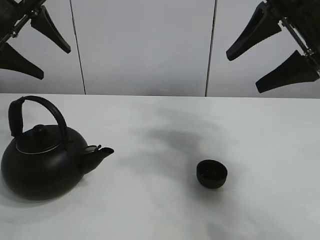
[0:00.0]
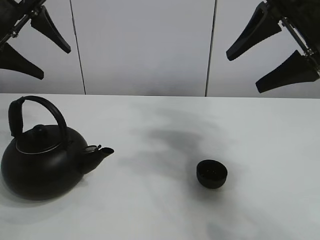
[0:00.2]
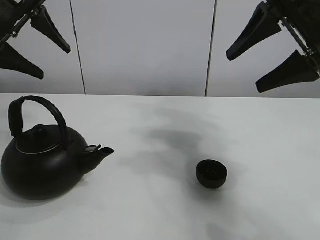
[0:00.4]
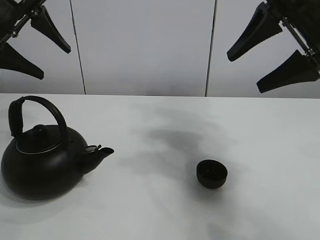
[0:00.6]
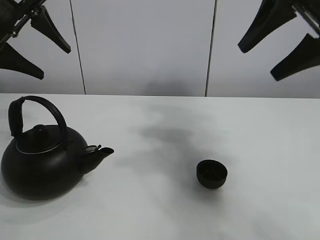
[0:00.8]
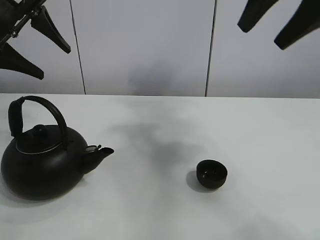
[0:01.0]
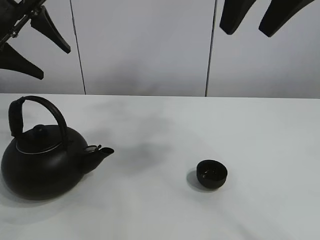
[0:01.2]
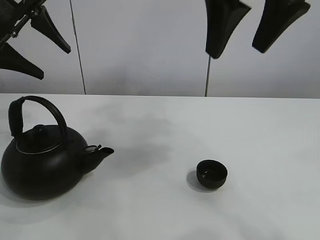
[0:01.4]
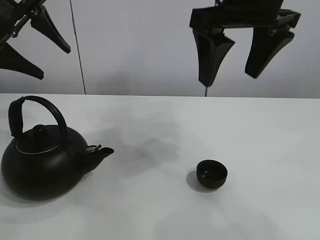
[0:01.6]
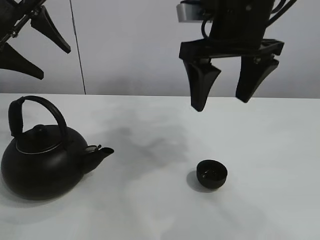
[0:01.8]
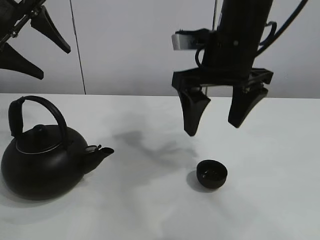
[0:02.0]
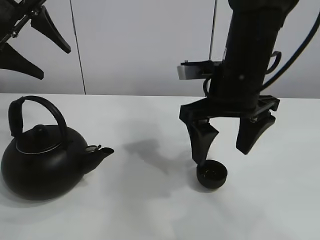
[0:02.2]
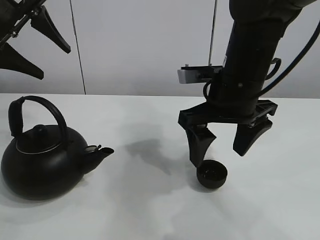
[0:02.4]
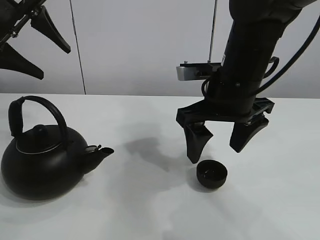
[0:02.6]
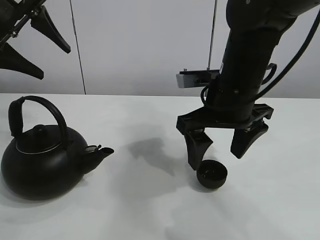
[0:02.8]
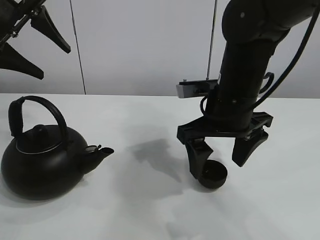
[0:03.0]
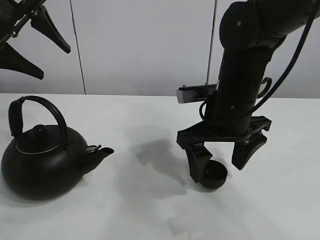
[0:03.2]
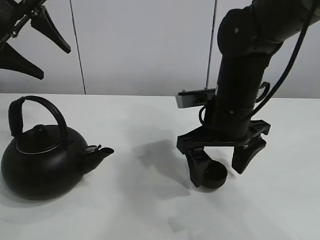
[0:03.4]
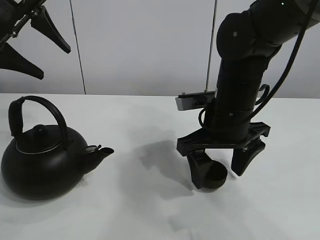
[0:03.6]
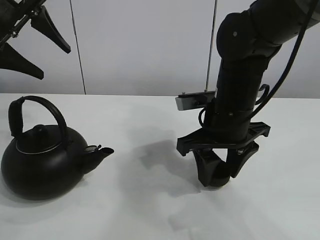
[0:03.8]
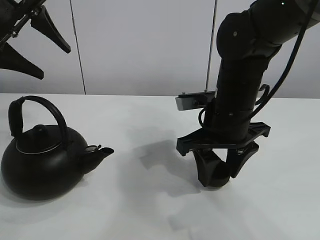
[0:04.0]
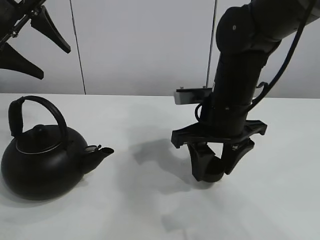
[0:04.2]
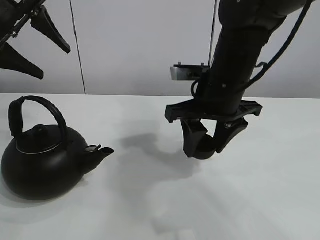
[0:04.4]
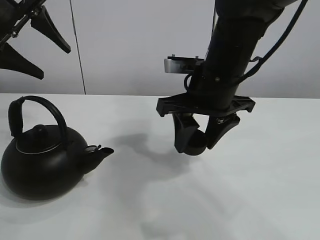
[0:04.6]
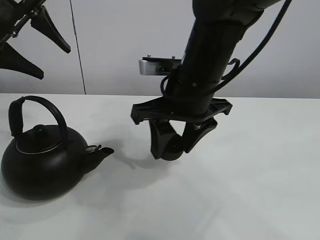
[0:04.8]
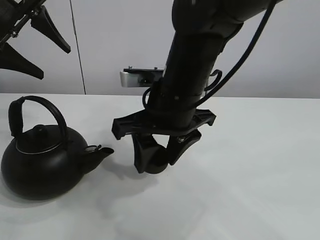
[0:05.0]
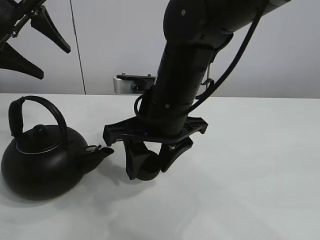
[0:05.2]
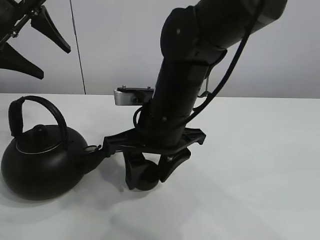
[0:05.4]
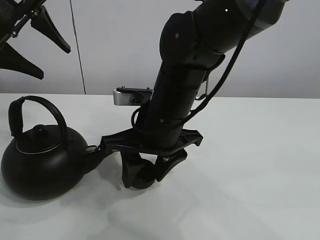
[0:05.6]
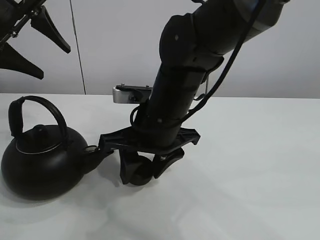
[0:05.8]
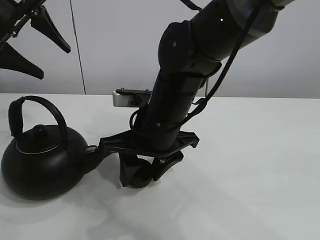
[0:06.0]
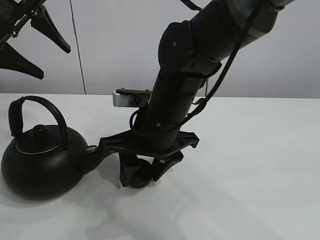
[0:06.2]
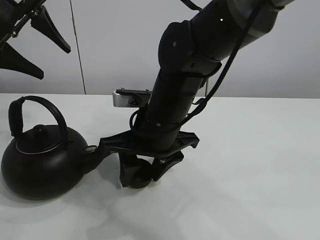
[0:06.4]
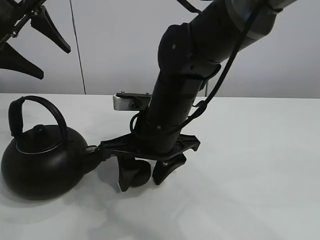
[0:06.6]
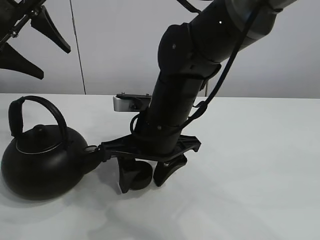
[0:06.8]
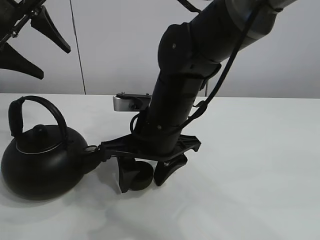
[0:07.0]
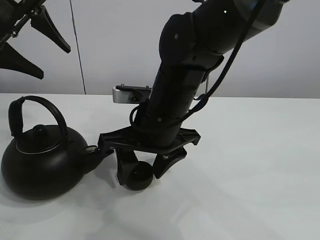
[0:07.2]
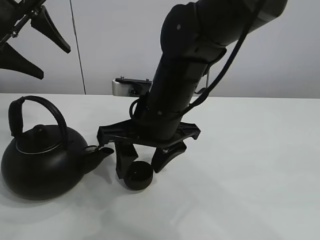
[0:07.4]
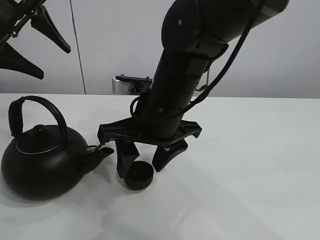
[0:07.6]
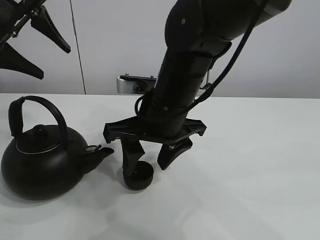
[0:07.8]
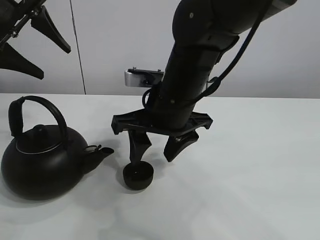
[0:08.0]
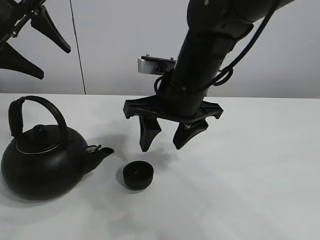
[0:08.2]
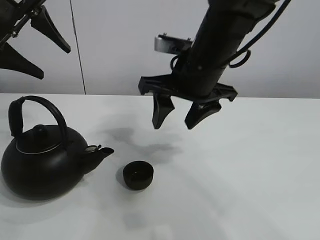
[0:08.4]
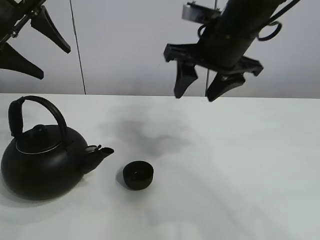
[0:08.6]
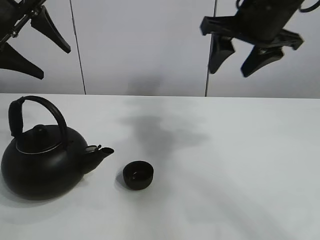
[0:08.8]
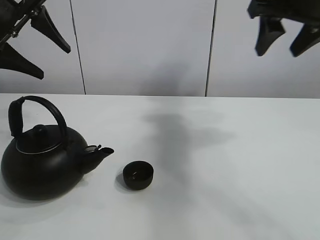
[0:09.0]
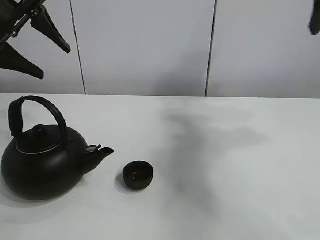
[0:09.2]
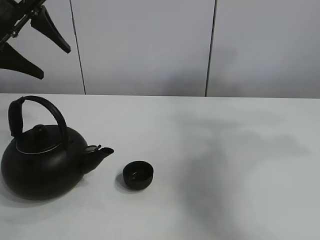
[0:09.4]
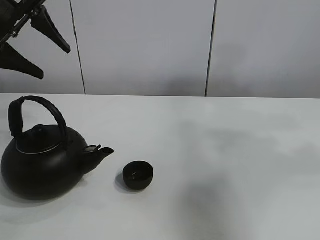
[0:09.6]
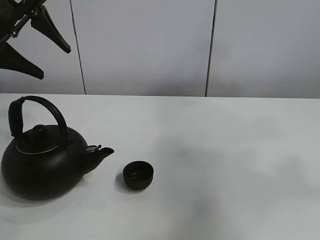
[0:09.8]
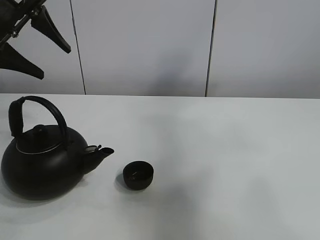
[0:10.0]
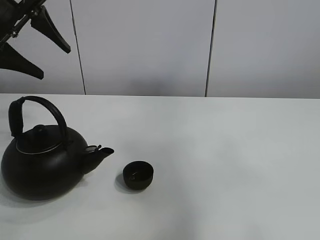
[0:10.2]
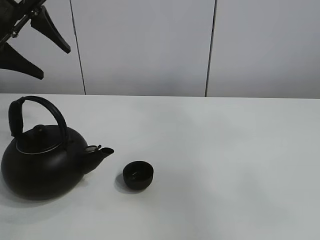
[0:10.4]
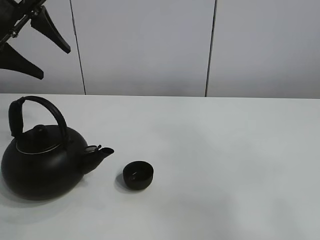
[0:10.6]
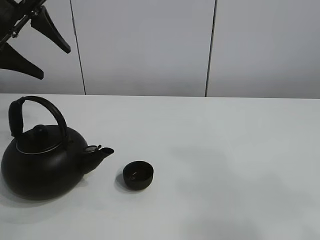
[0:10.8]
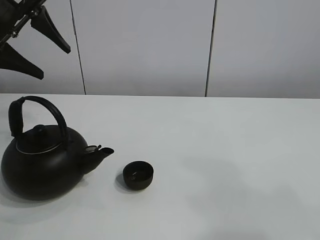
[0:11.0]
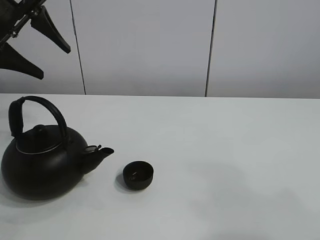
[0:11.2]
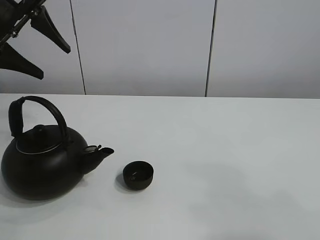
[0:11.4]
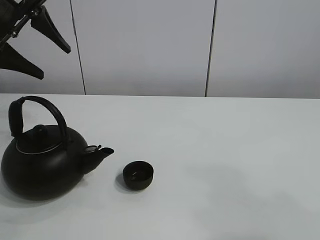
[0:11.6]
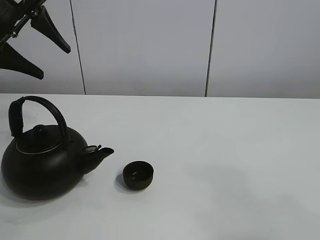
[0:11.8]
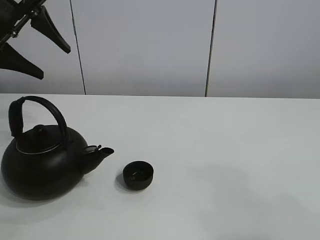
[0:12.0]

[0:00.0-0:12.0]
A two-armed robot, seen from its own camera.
Task of the whole recording: pour tea into the teacup.
Step, 0:00.0 to 0:04.0: Pick up the teacup with the right gripper.
Step, 0:04.4 to 0:06.6: Place the teacup in the center of view with the right gripper.
0:01.6 to 0:03.0: The right gripper goes approximately 15 cm downward.
0:03.0 to 0:04.4: The right gripper closes.
0:04.4 to 0:06.0: The right gripper moves to the left, some 10 cm.
0:06.0 to 0:07.6: The grippers stay close to where they were, moving slightly.
0:07.6 to 0:09.0: The right gripper is displaced to the right and upward by some 25 cm.
0:09.0 to 0:10.4: The right gripper goes some 35 cm backward and upward.
0:10.4 to 0:12.0: The right gripper shifts approximately 20 cm downward.

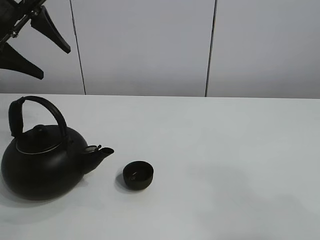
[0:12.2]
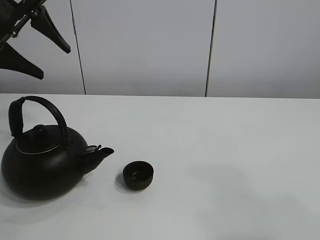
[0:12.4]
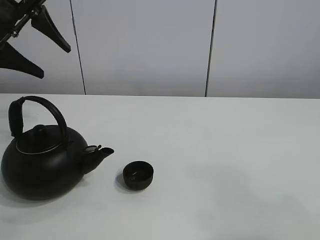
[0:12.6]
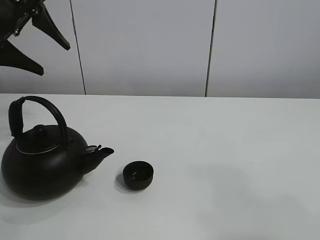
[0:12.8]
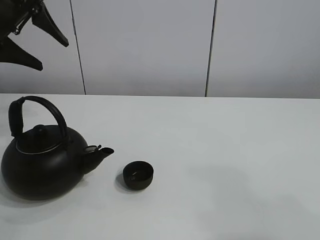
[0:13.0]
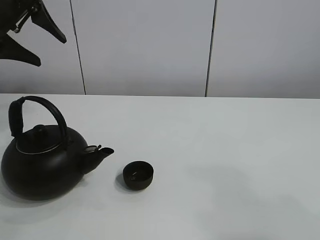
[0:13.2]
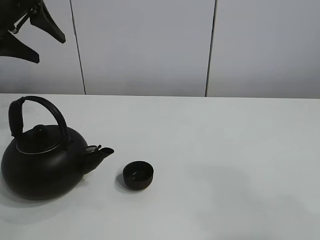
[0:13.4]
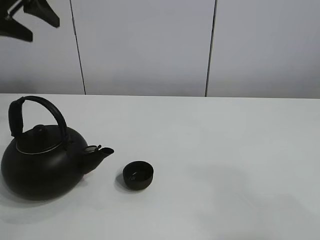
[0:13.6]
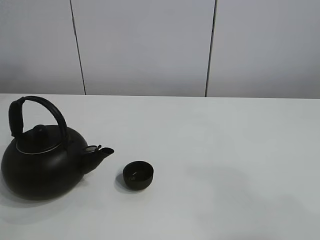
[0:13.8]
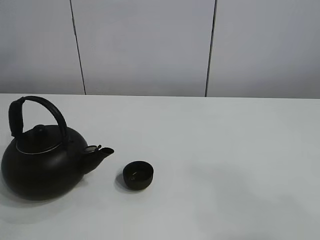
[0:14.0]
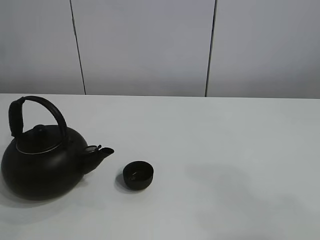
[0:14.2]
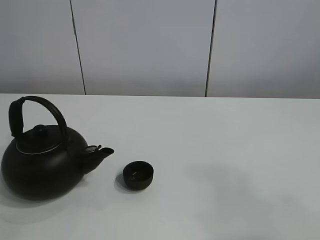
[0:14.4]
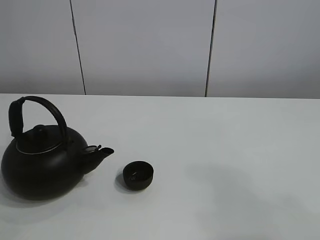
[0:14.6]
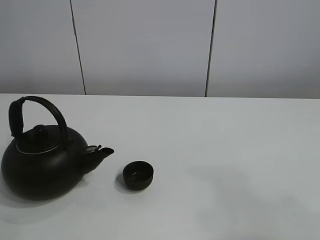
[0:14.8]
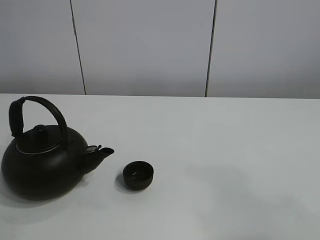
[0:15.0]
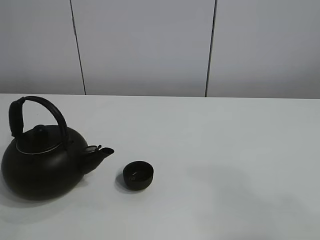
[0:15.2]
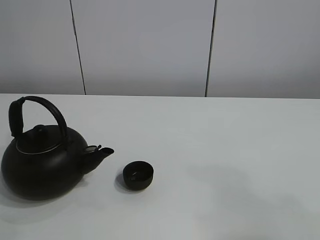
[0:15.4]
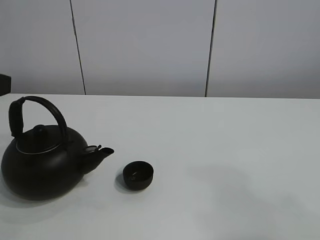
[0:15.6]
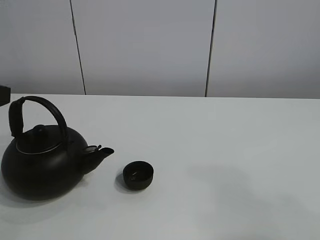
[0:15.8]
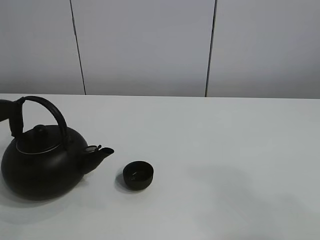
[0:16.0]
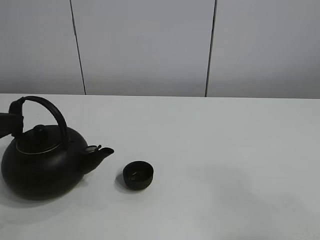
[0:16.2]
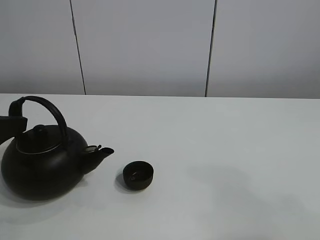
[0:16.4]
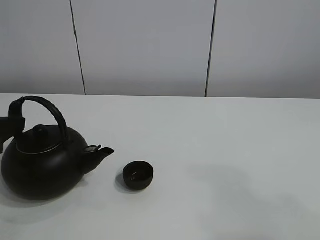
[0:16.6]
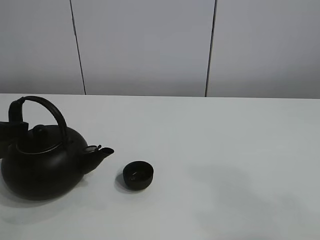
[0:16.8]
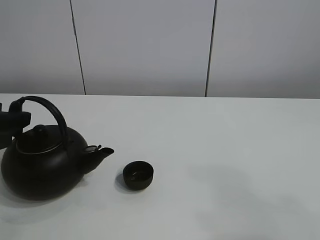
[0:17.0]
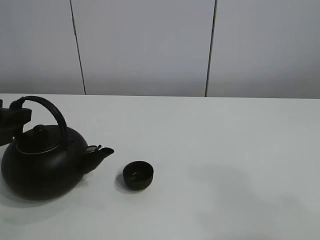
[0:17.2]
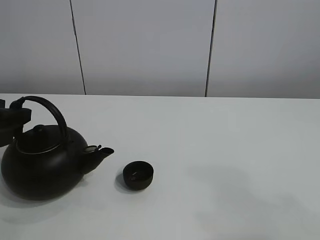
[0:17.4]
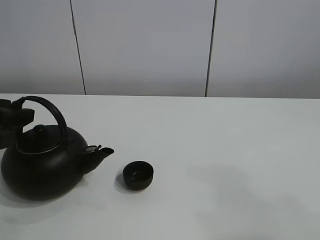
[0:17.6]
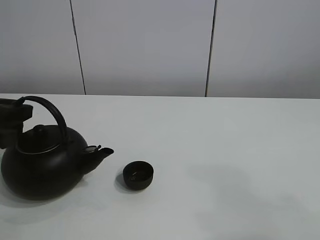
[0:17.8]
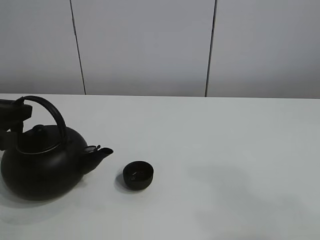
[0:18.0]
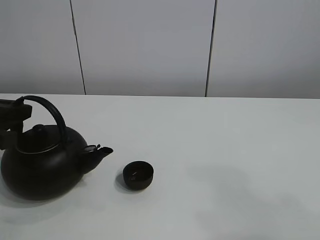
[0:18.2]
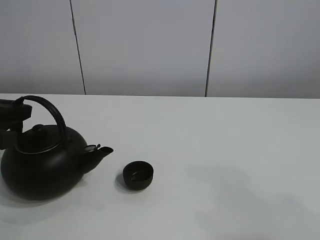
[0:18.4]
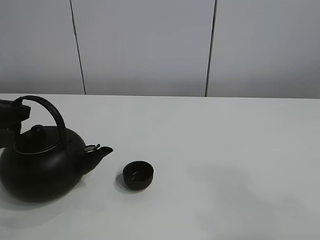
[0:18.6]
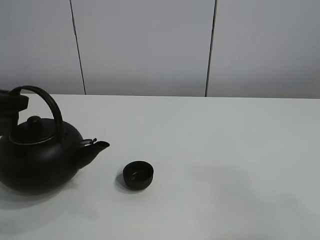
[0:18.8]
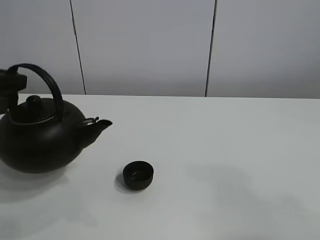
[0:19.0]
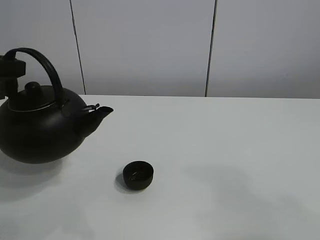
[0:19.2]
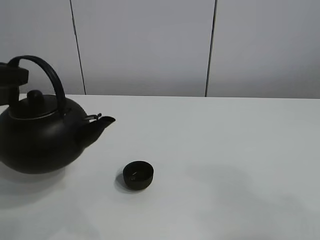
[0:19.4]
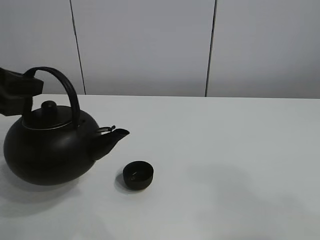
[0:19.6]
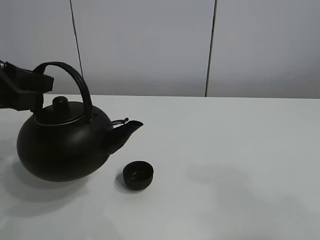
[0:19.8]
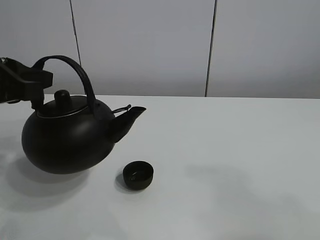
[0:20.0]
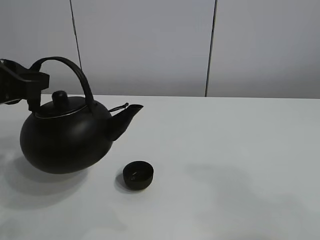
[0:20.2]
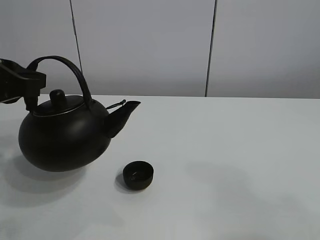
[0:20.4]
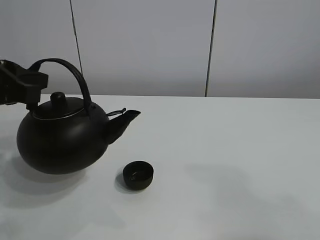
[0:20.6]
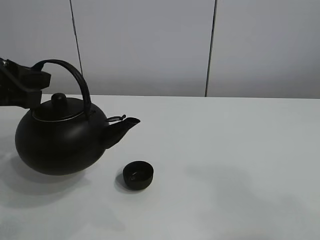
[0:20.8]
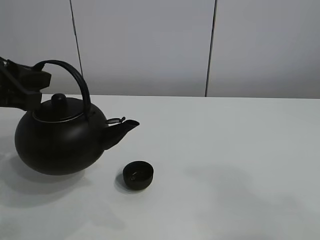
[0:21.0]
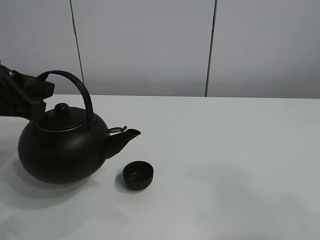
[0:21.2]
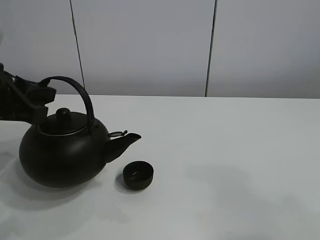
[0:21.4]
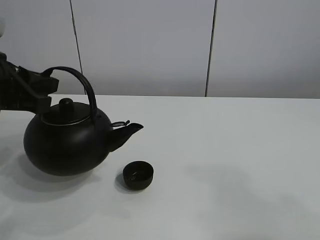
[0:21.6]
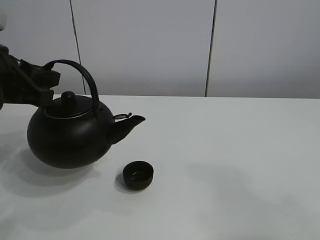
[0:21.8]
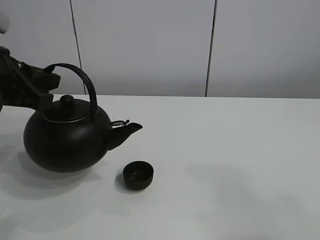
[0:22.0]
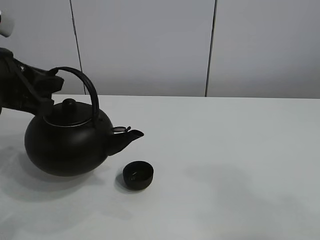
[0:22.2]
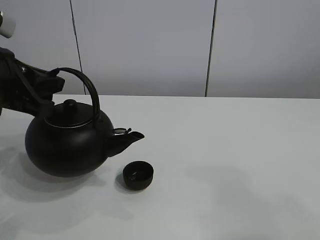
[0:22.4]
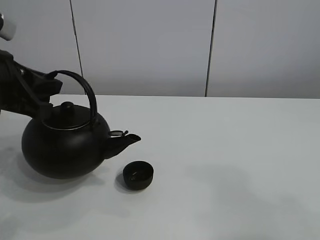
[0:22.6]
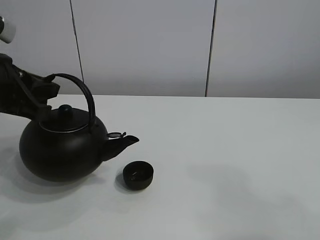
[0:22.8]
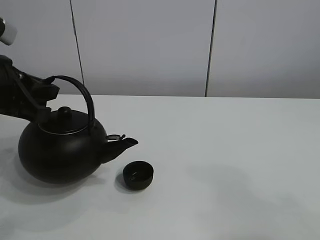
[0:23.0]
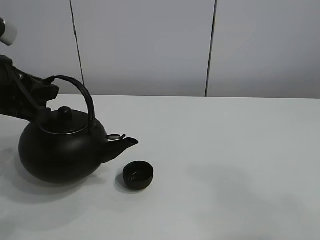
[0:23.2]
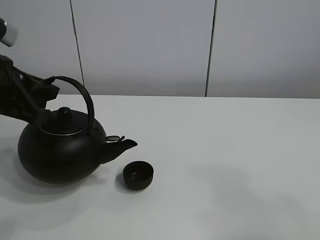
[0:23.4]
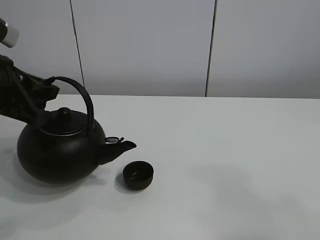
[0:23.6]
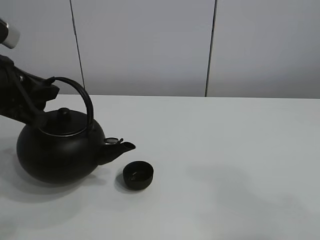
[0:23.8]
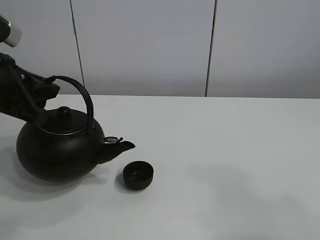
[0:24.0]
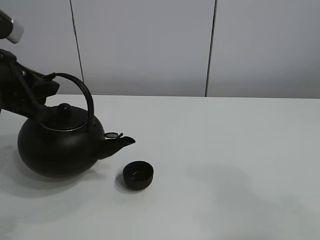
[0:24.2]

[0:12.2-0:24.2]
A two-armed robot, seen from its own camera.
Task of the whole recording: pour tea into the teacup.
Step, 0:12.2 to 0:18.6: Pick up the teapot with the left gripper.
0:12.2 to 0:13.8: The left gripper moves upward, roughly 10 cm.
0:16.6 to 0:18.2: The left gripper closes up.
0:18.2 to 0:19.8: The left gripper goes about 5 cm upward.
0:19.8 to 0:24.2: The grippers stay close to where they were, moving slightly.
